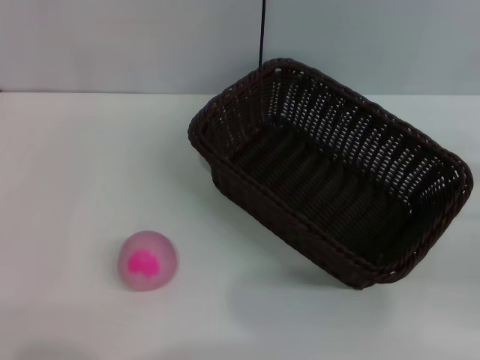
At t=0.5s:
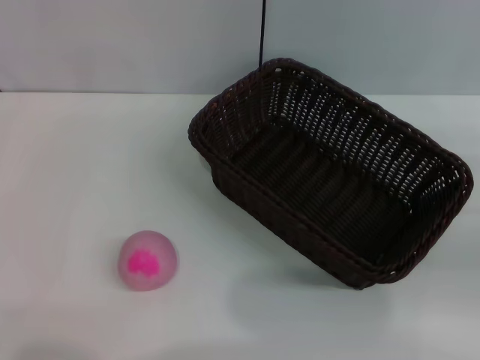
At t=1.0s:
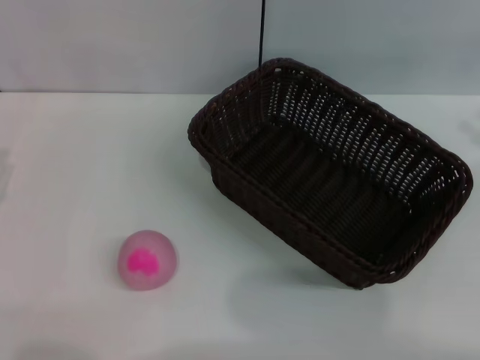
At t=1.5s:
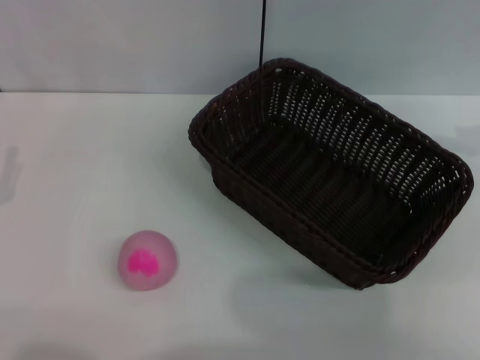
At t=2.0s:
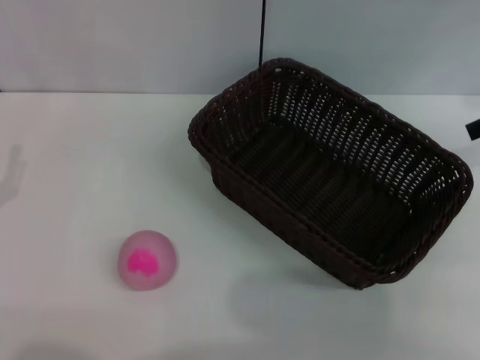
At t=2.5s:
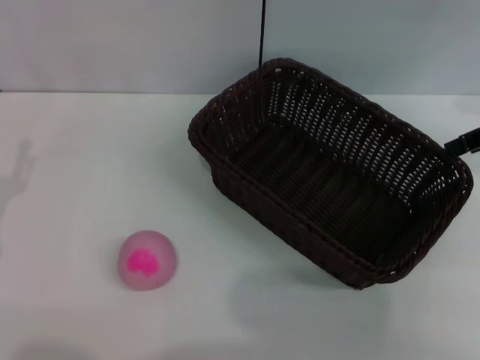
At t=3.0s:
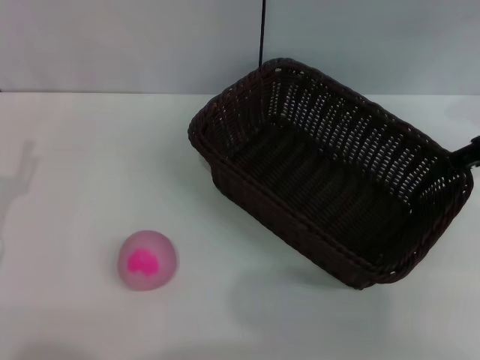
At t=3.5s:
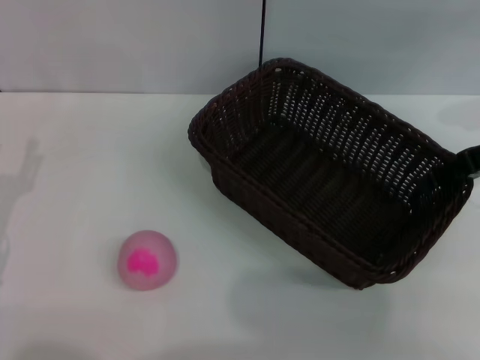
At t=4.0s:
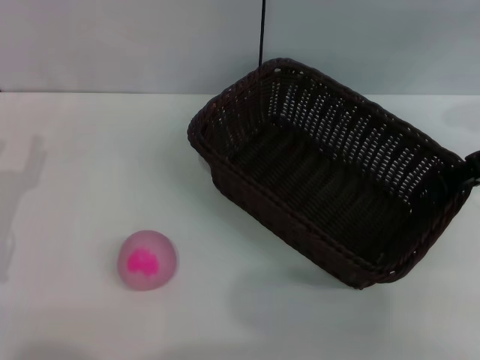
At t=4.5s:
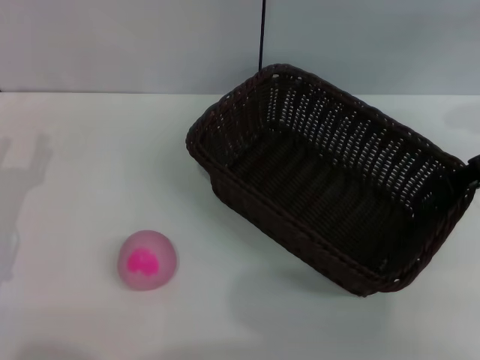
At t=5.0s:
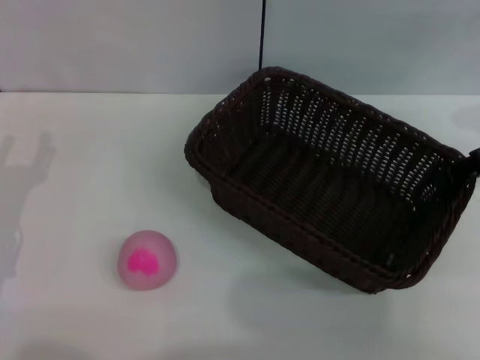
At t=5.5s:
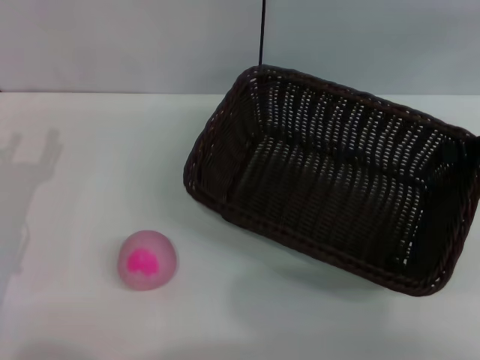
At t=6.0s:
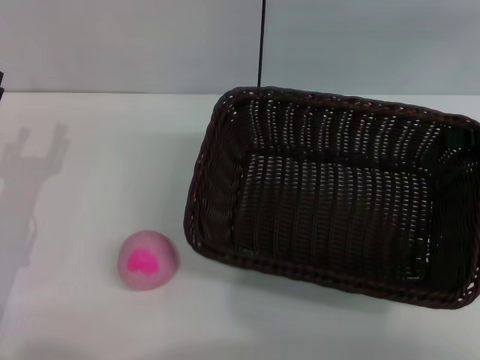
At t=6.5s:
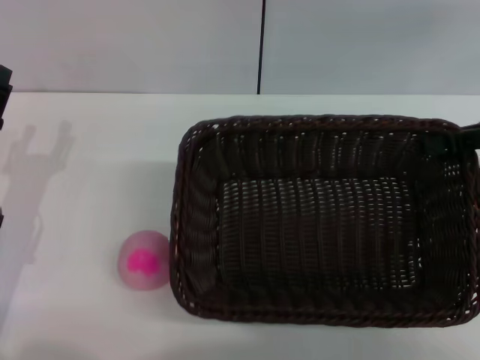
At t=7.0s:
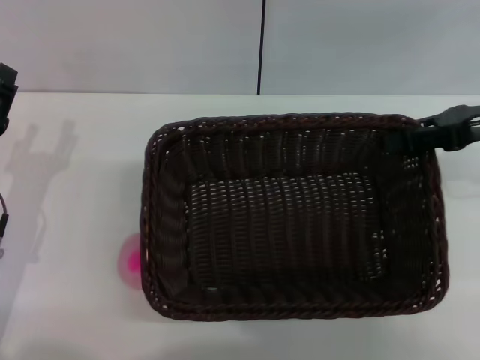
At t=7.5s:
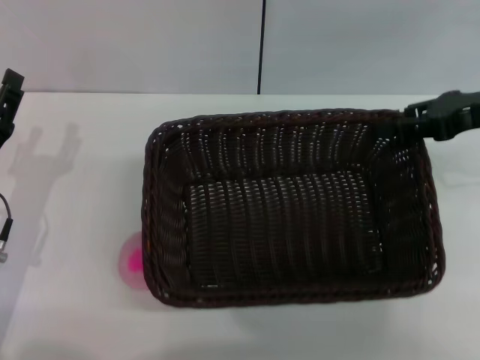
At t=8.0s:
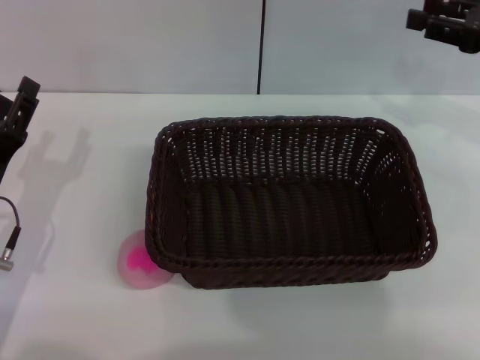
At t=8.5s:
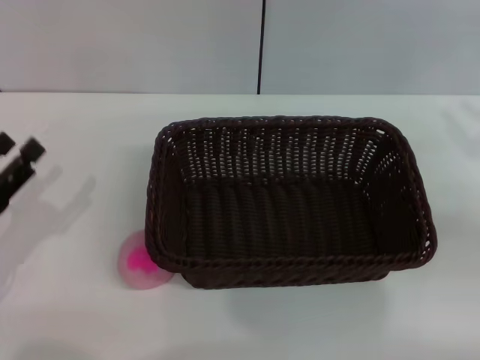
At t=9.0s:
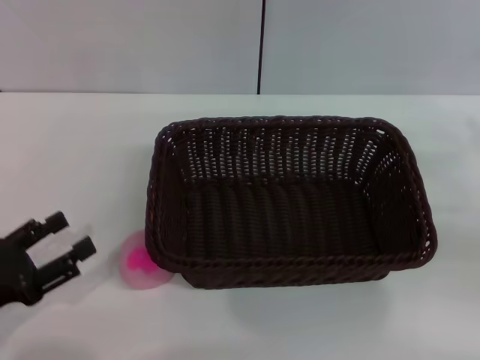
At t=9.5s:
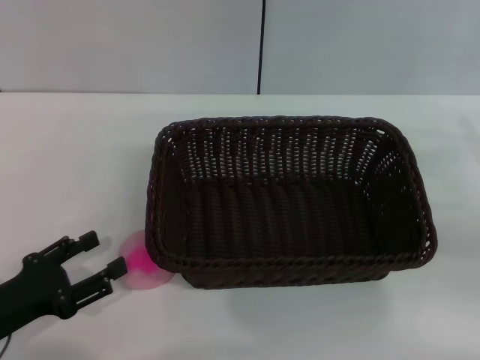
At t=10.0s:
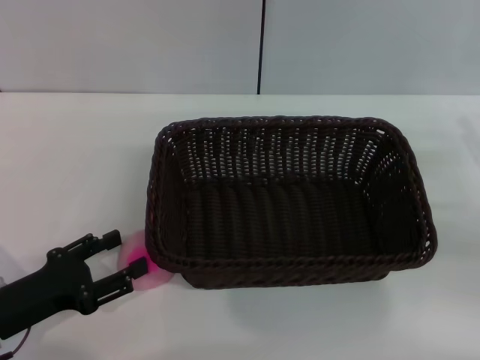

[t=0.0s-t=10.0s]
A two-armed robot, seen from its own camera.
Step, t=0.0s to t=5.0s: Pick up the dark basket with the right gripper.
Step, t=5.5s to t=7.5s: Place the dark basket in the center of view with the right gripper.
t=0.0s to t=2.0s: The right gripper shifts about 20 cm upward and forward.
t=2.0s to t=4.0s: The right gripper moves downward, some 5 cm.
t=4.0s to t=6.0s: The right gripper ends up approximately 5 cm from where it was, and closes its fingers.
t=6.0s to t=8.0s: The right gripper ends up approximately 5 cm from where it was, and opens up.
t=8.0s to t=10.0s: The left gripper moves backward, roughly 5 cm. Meanwhile the right gripper goes roughly 15 cm backward and downward.

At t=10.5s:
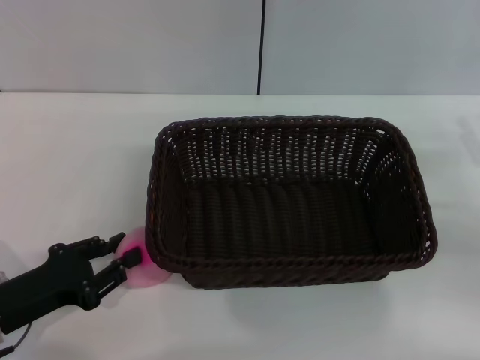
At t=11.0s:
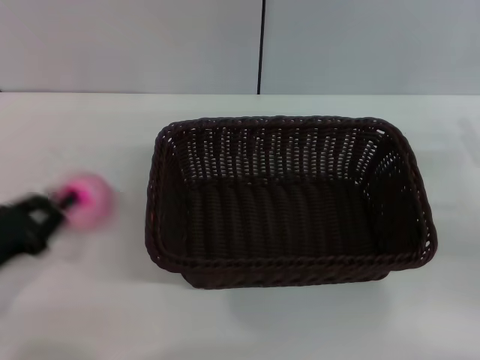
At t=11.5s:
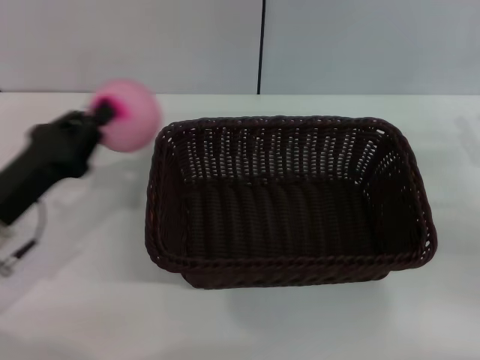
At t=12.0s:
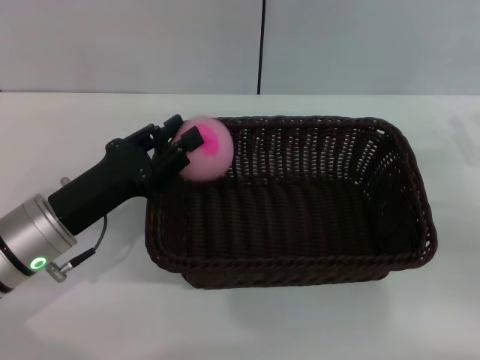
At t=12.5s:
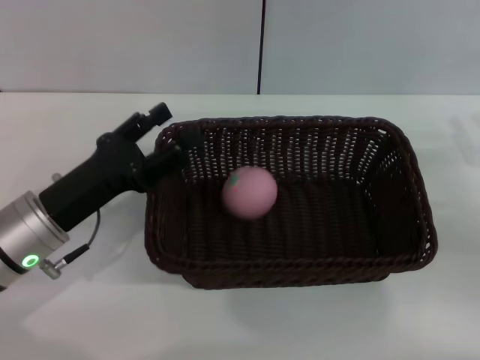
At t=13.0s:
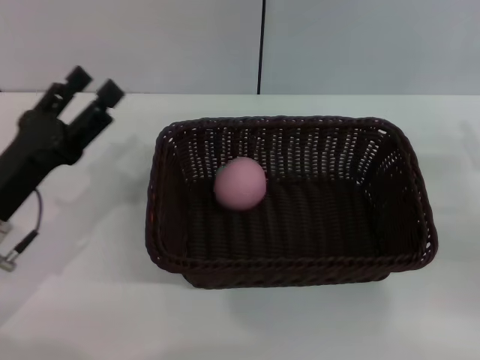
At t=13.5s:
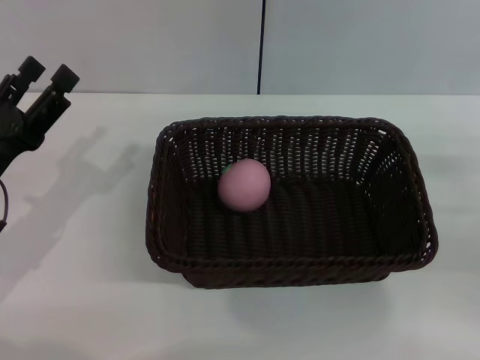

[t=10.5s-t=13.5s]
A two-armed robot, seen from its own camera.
Step, t=11.5s to t=12.0s: Place the peach into the basket with the left gripper.
t=10.5s to t=12.0s: The left gripper is displaced to the right and forward by roughly 10 cm, and closes its fingers.
t=12.0s to t=13.5s: The left gripper heads to the left, covering some 5 cm, and opens up.
